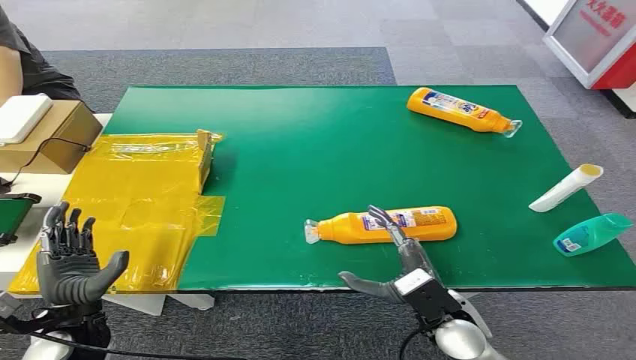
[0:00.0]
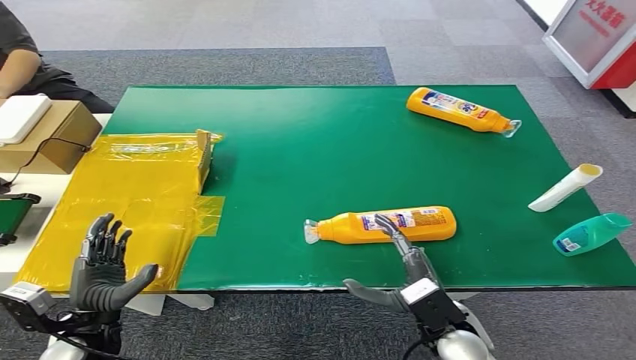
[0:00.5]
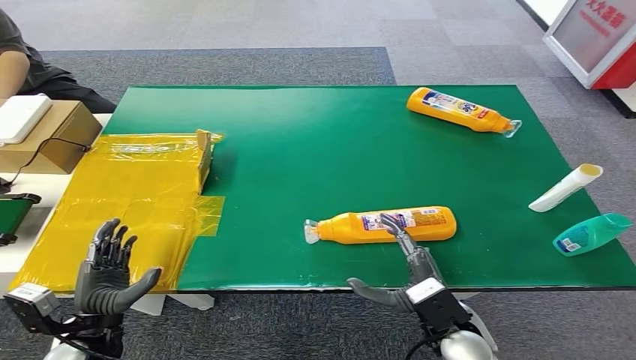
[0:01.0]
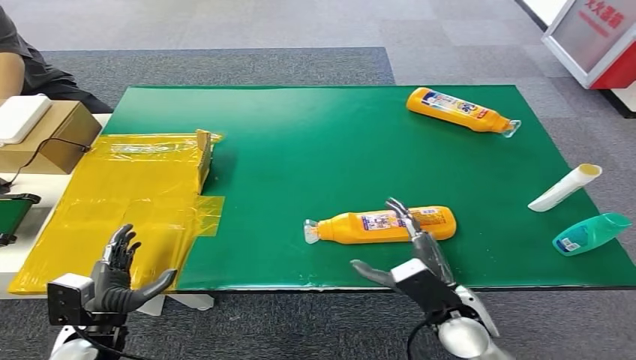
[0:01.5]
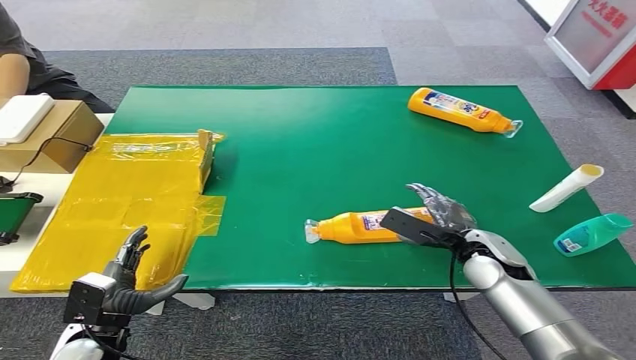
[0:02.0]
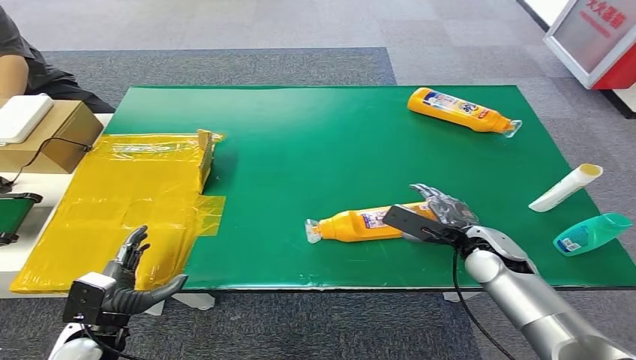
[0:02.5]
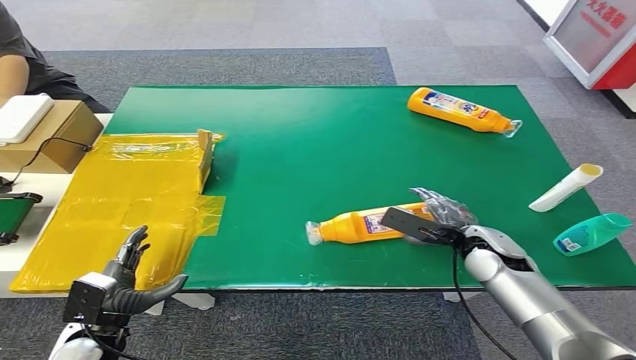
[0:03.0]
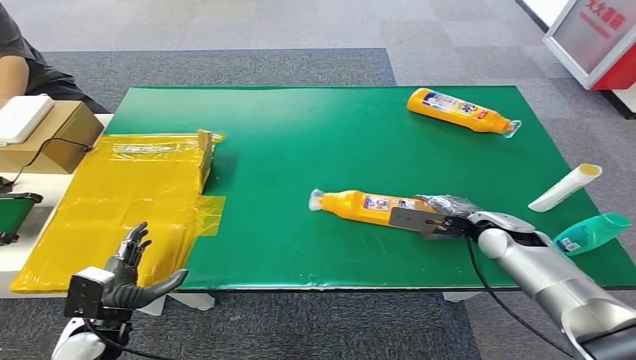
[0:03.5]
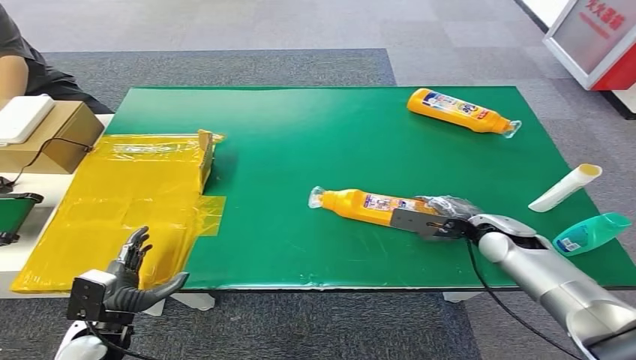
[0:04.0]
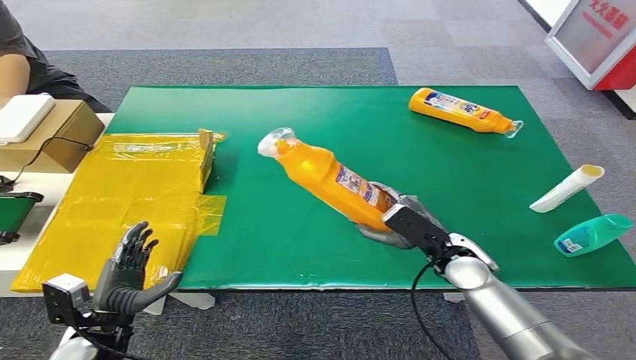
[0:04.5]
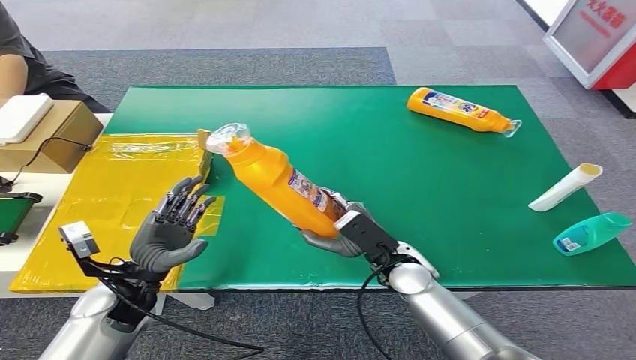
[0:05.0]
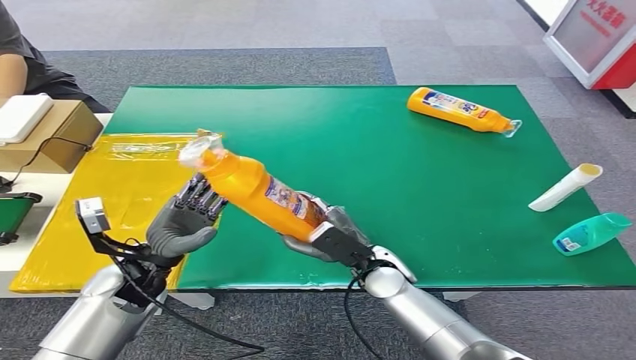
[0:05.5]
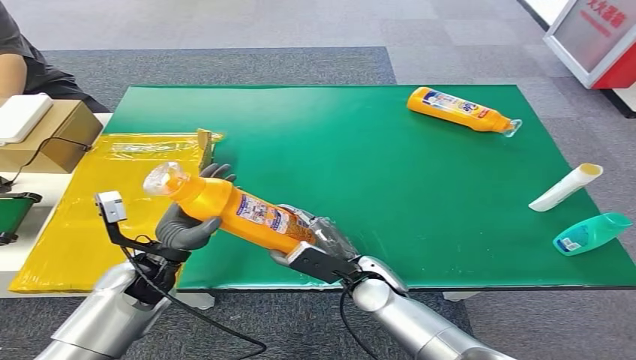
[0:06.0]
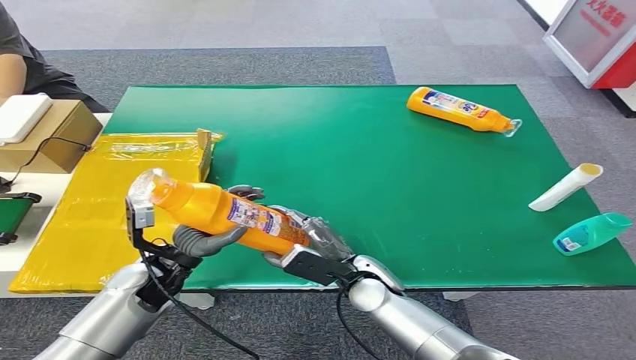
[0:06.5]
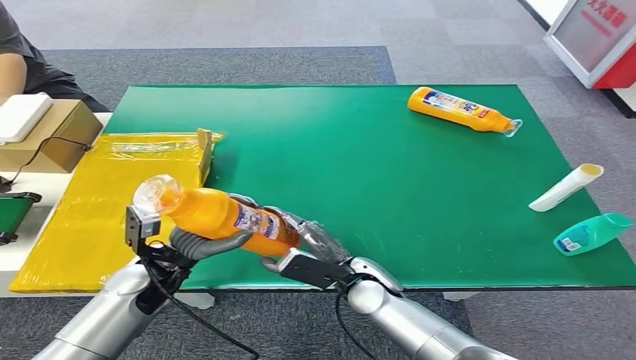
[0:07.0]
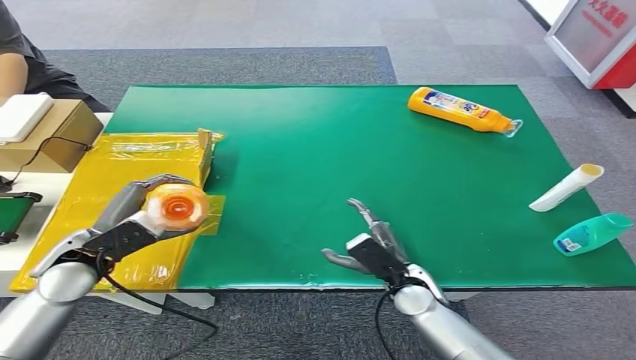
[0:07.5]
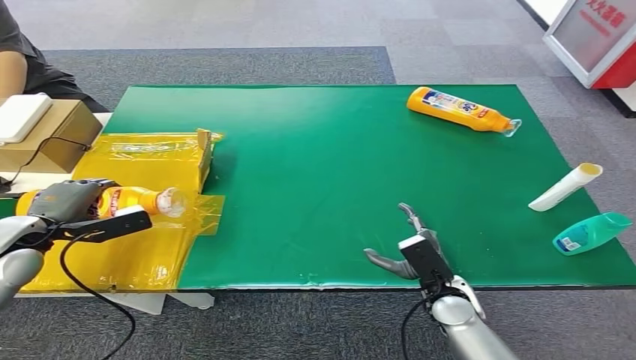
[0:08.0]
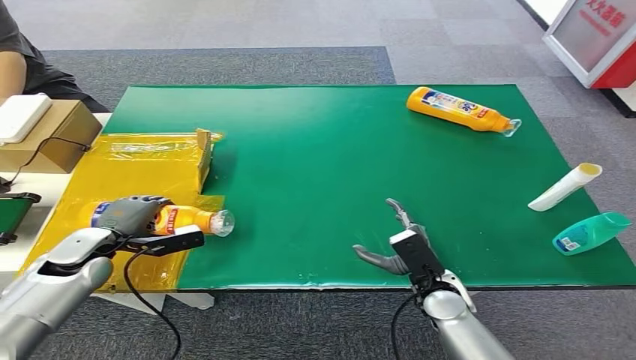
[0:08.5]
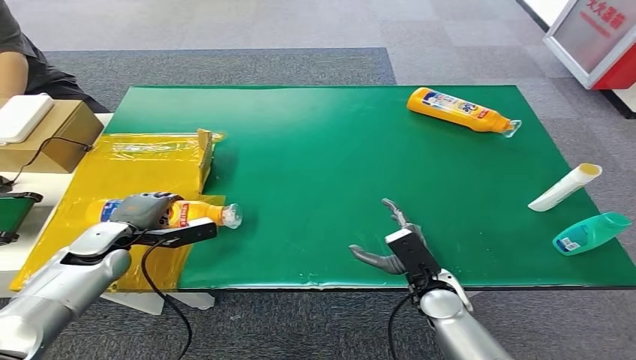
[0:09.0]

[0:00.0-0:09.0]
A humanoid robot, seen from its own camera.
Step, 0:00.0 to 0:04.5: Pick up the bottle from the table.
Step, 0:05.0 to 0:09.0: Turn the bottle to the front side.
0:07.0 to 0:09.0: The right hand heads to the right, covering approximately 10 cm. Meanwhile the left hand heads to the left and forward, covering approximately 10 cm.
